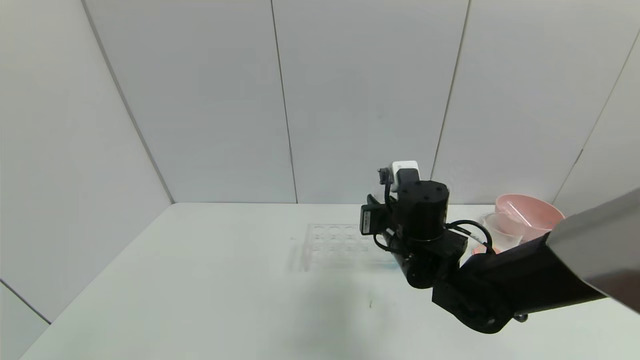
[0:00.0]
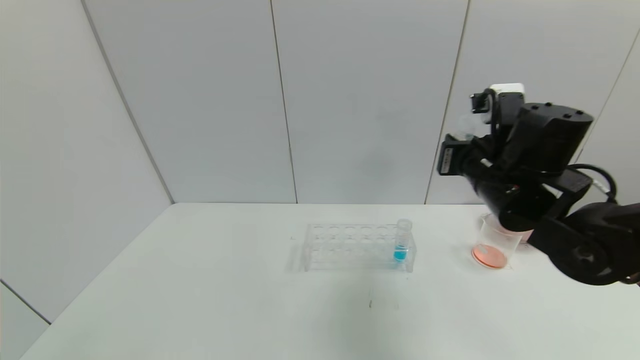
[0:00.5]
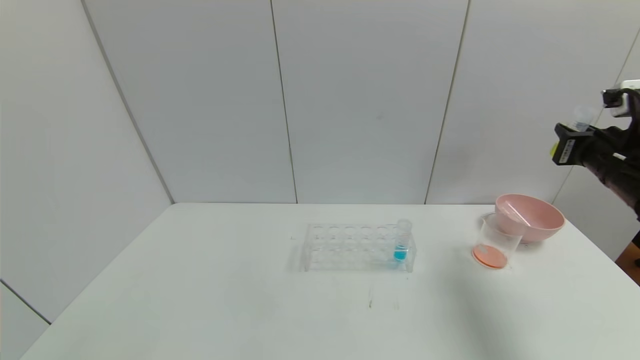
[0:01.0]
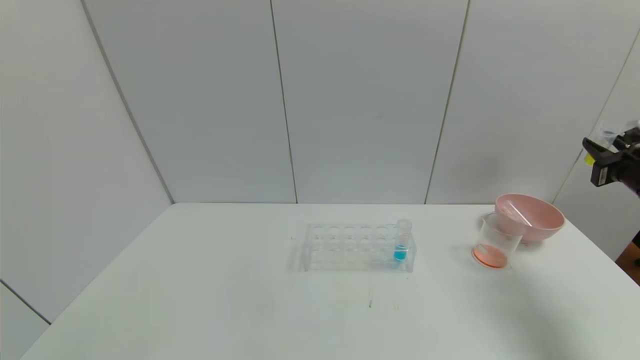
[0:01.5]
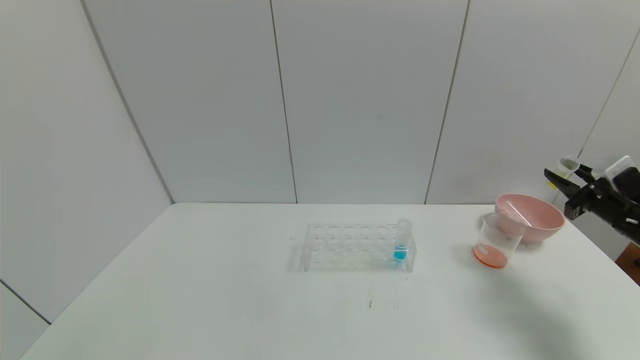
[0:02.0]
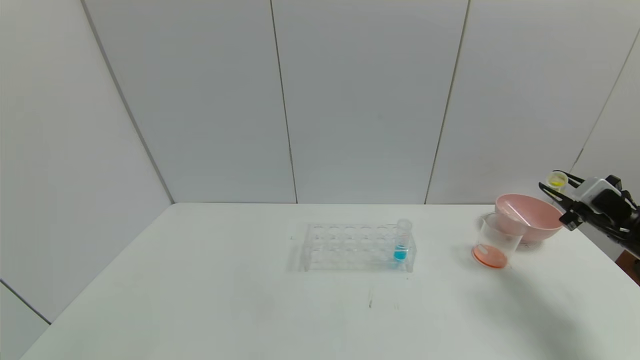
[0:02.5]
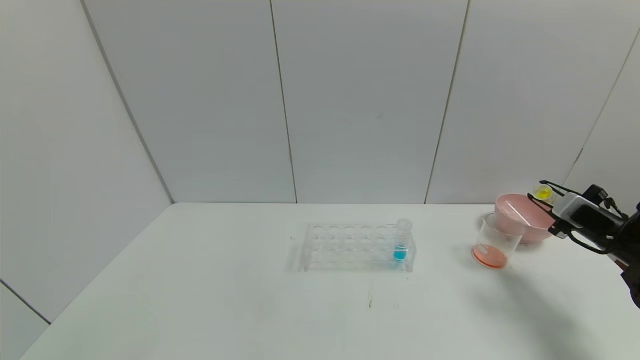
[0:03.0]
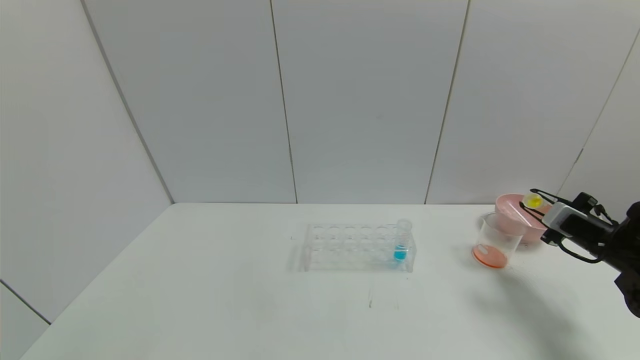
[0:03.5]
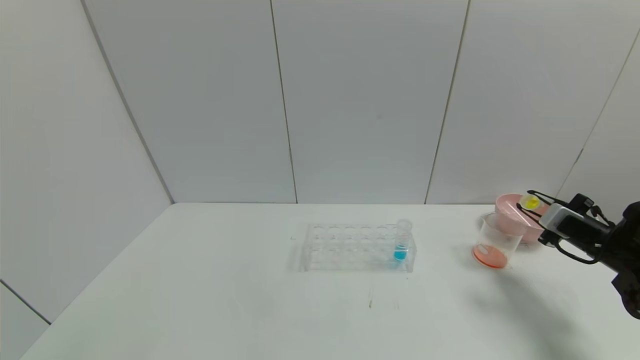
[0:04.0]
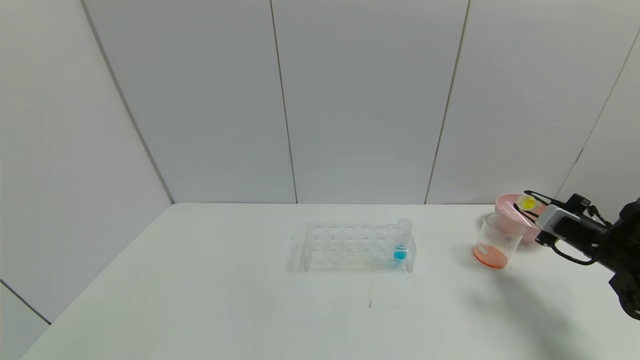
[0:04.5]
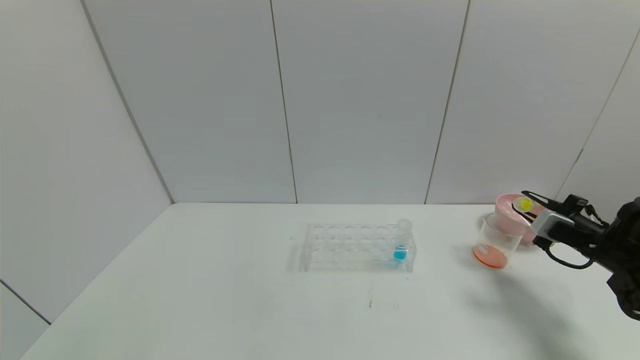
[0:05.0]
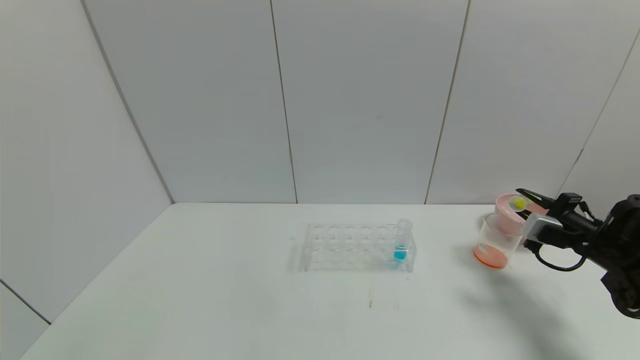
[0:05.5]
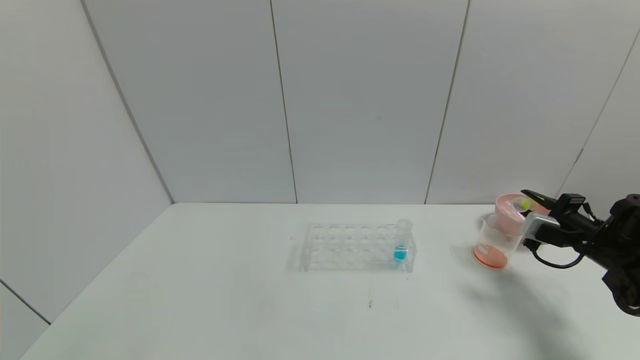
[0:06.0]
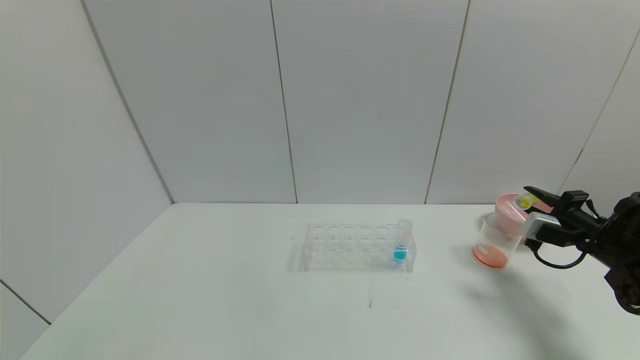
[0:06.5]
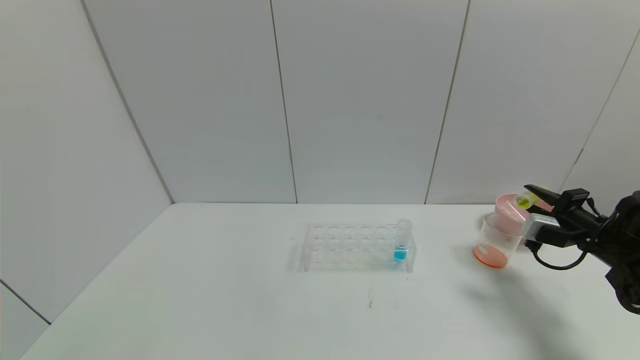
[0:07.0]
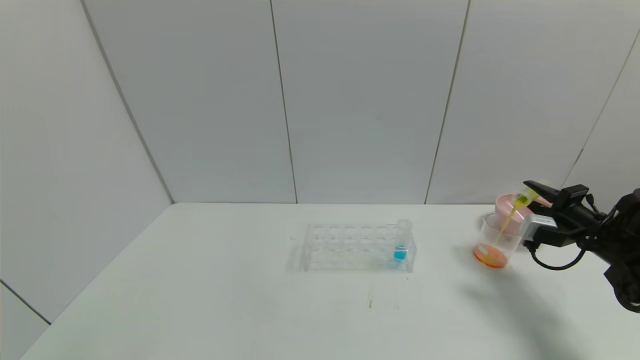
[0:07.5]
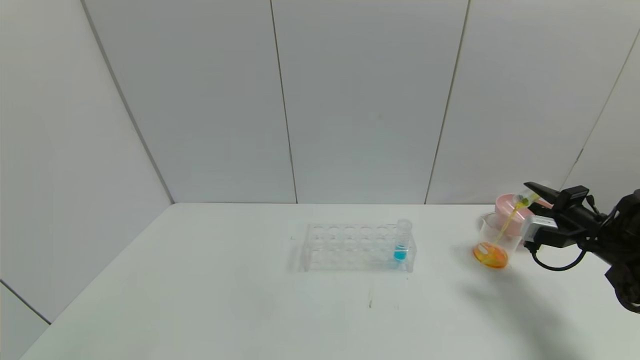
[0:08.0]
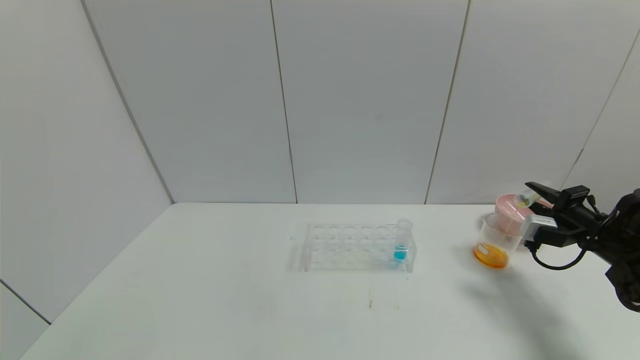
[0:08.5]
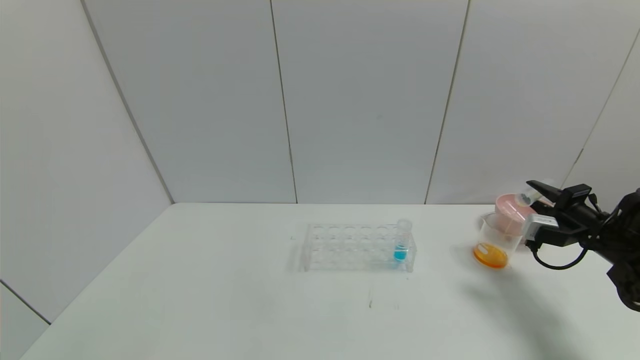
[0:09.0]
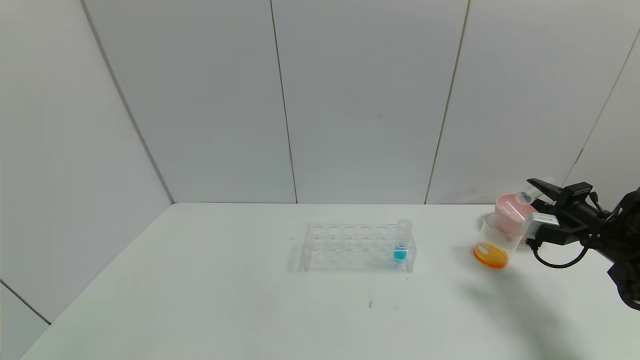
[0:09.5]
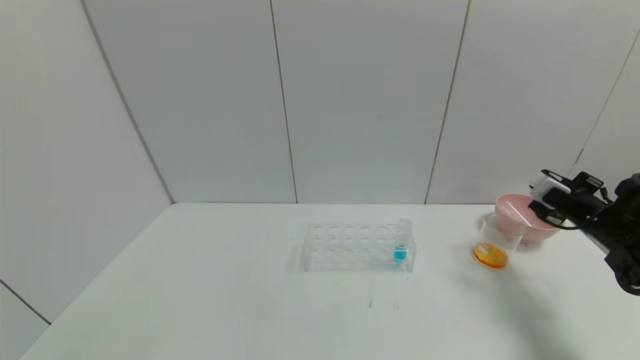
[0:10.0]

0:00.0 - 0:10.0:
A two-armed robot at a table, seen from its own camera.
Task of the whole recording: pick up the test tube with yellow pigment and the test tube with red pigment by grippers and pour them into the beaker.
Step, 0:00.0 - 0:09.0: Pour the yellow reagent into the graduated cylinder with the right gripper.
0:00.0 - 0:02.0: The right gripper is displaced to the right by approximately 35 cm.
0:02.0 - 0:04.0: The right gripper moves downward, approximately 5 cm.
0:04.0 - 0:06.0: The grippers make only small movements.
0:06.0 - 0:08.0: The grippers move only a little.

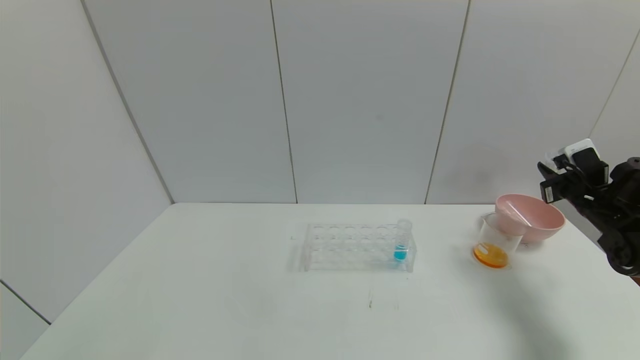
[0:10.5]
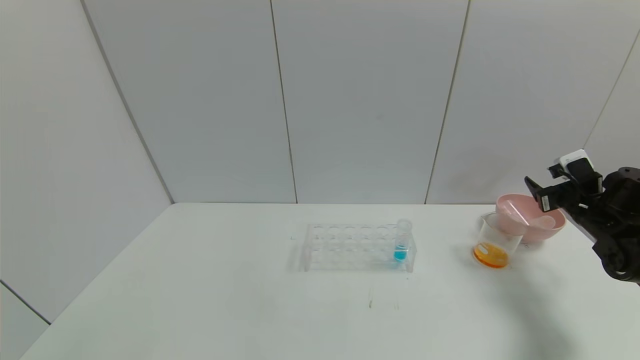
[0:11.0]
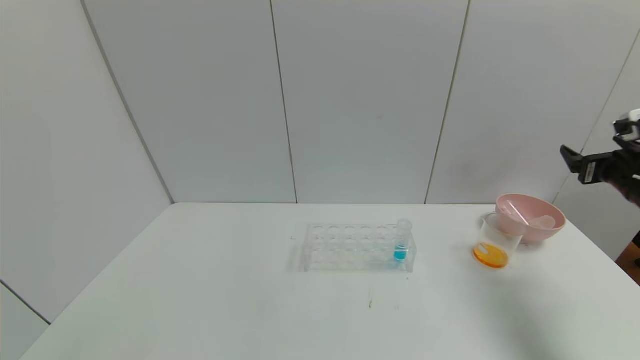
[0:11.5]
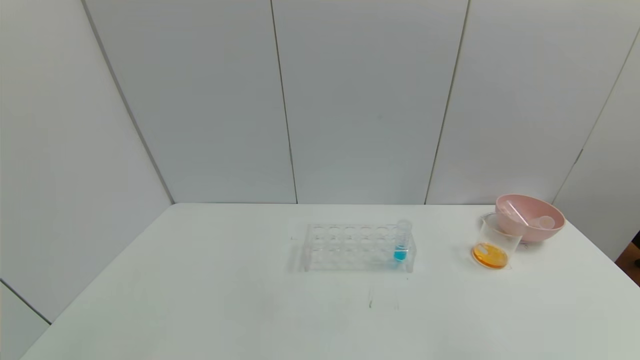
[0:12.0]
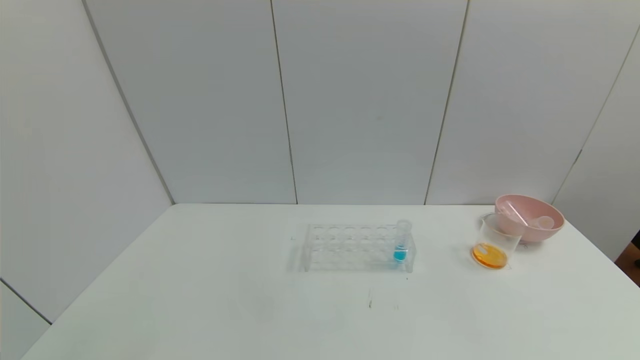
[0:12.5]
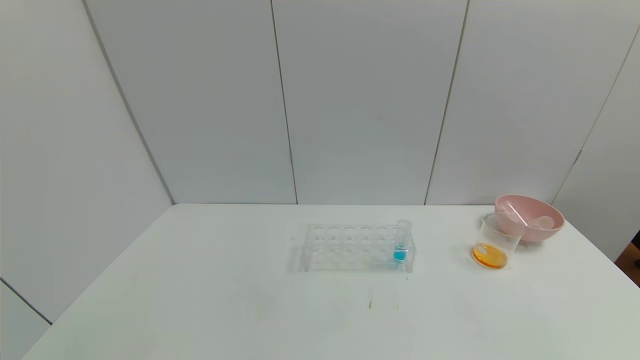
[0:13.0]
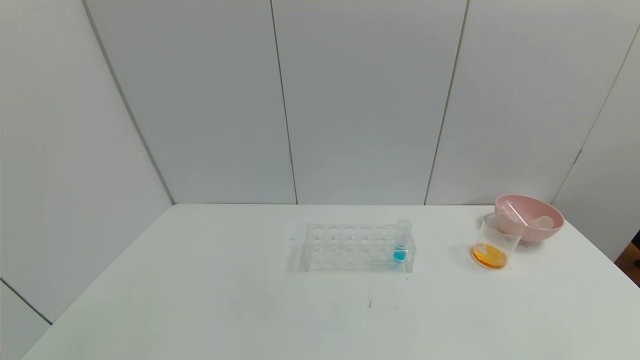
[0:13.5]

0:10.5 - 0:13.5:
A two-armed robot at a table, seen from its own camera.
Task of the whole recording: pick up the test tube with yellow pigment and the test tube with red pigment by grippers and pour them into the beaker.
0:10.5 - 0:12.0: The right gripper goes roughly 25 cm backward and upward, and opens.
